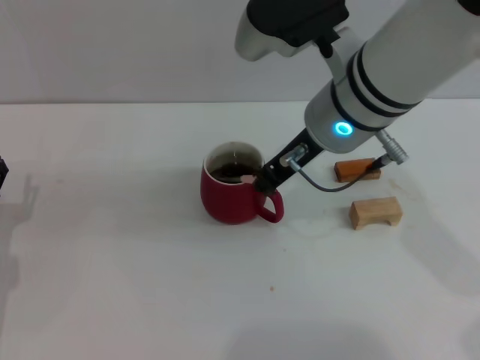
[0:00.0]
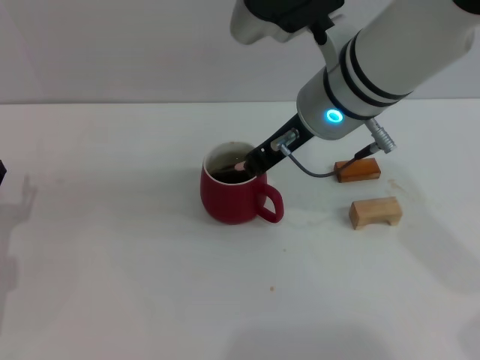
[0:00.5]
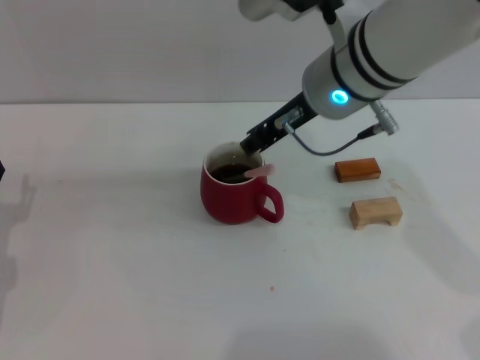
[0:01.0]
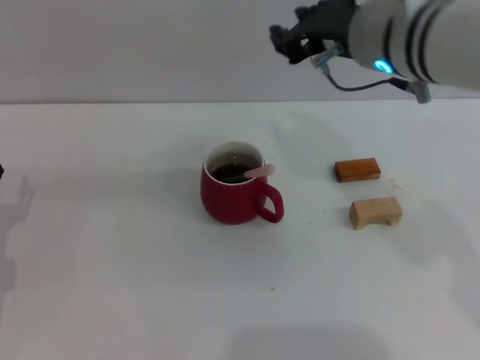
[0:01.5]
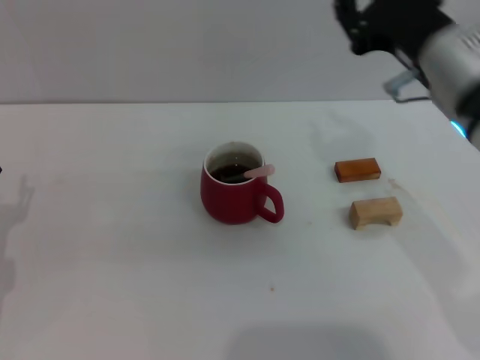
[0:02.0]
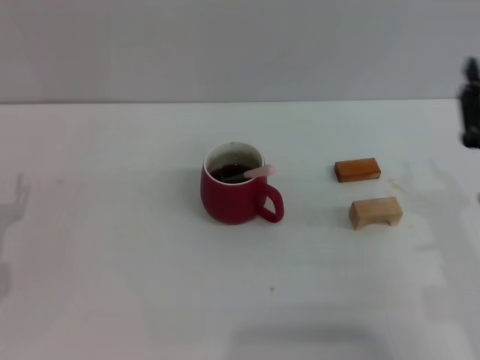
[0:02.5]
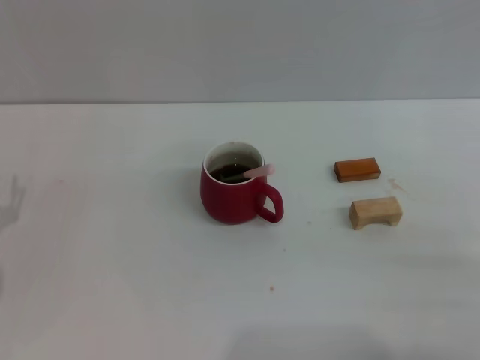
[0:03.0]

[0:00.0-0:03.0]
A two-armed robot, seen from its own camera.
Task of the whole recording: Move the red cup to the center, lift the pink spoon, stir it three times in the cup, and put the spoon into the cup.
0:00.0 to 0:01.5: The right gripper opens its fingers.
0:01.5 to 0:03.0: The right gripper heads backward, to the right and downward, covering about 30 cm.
